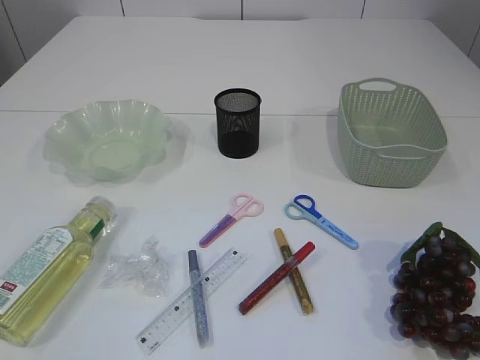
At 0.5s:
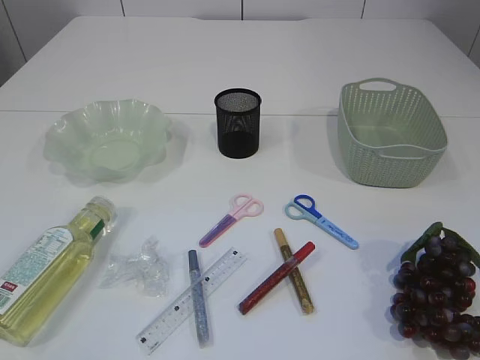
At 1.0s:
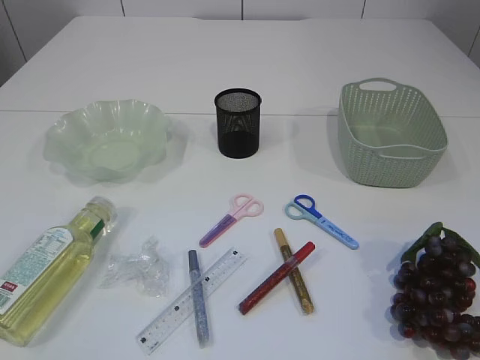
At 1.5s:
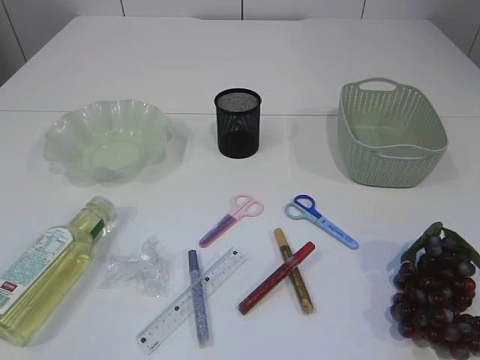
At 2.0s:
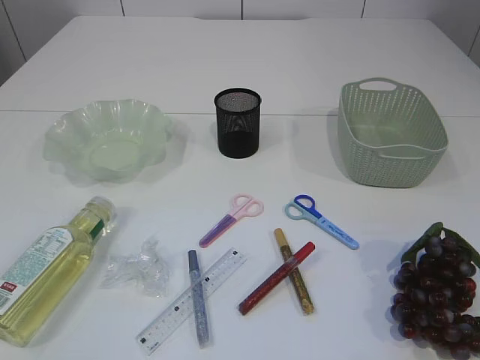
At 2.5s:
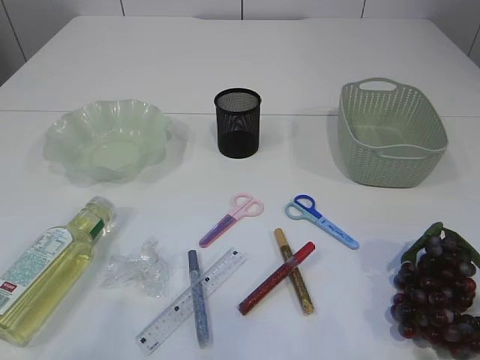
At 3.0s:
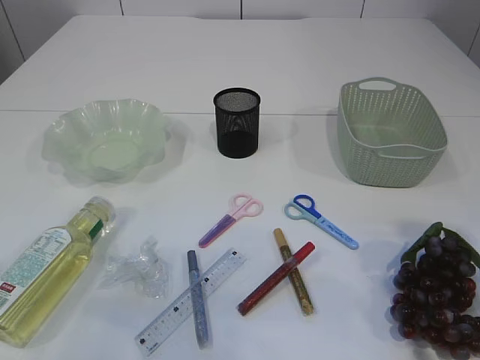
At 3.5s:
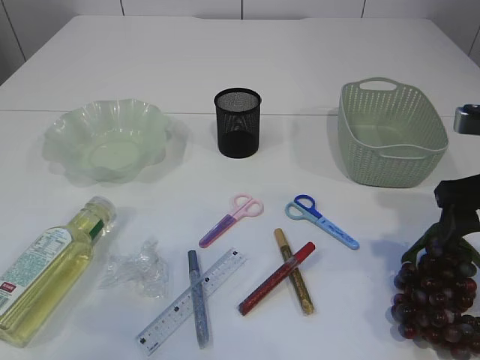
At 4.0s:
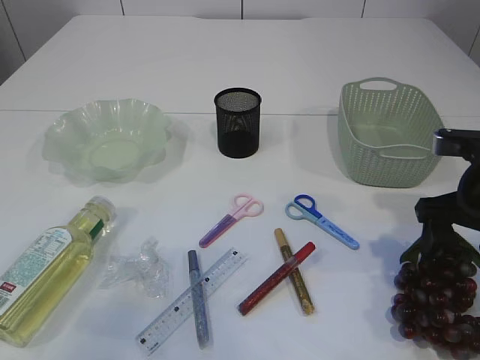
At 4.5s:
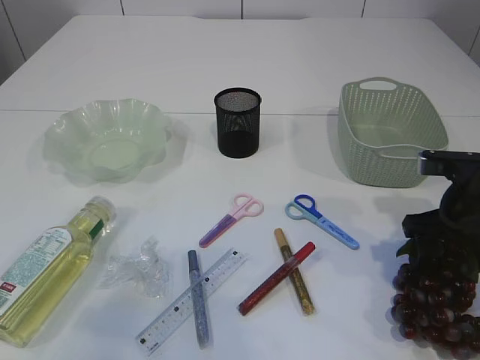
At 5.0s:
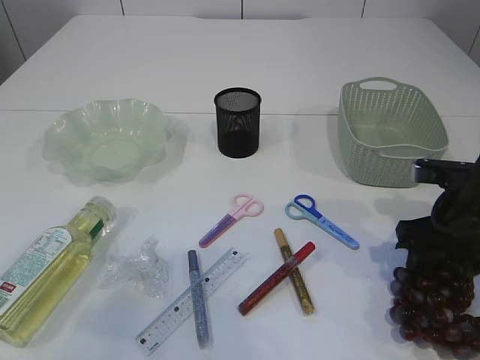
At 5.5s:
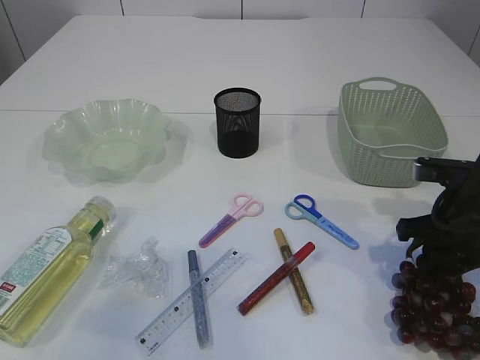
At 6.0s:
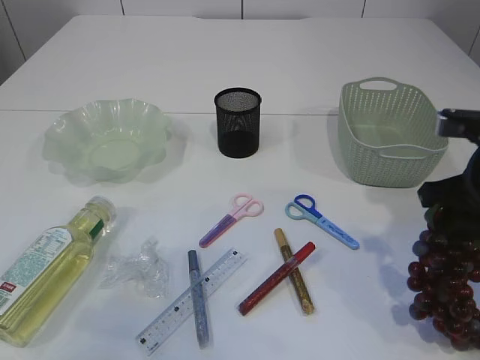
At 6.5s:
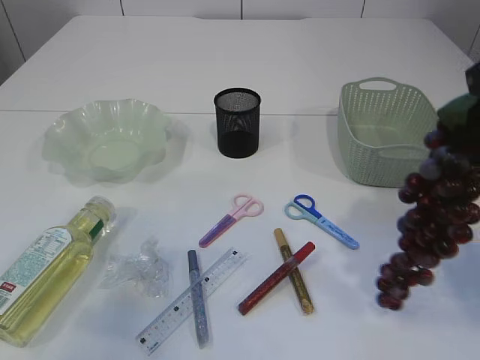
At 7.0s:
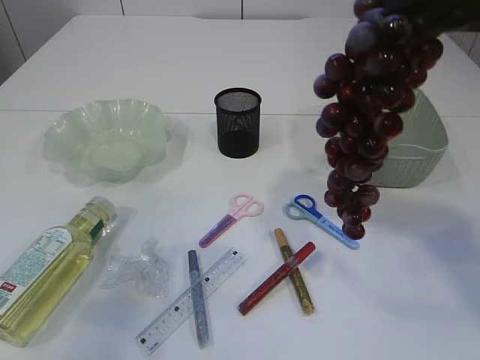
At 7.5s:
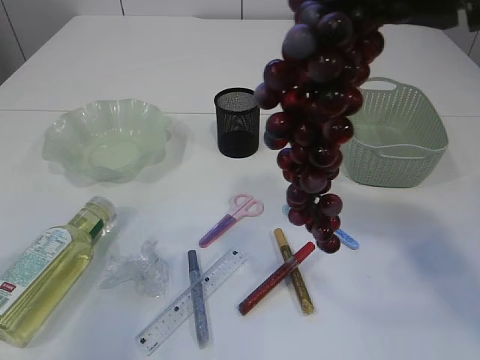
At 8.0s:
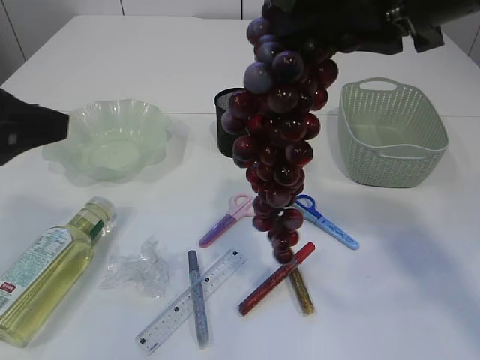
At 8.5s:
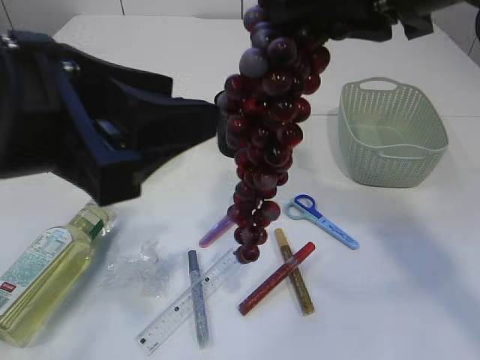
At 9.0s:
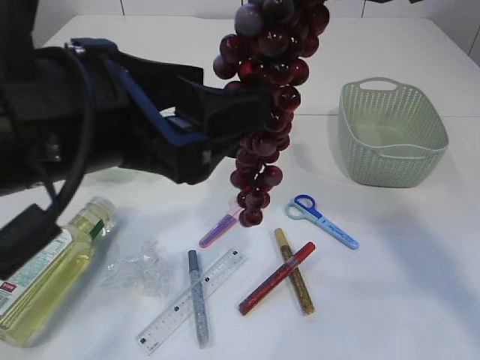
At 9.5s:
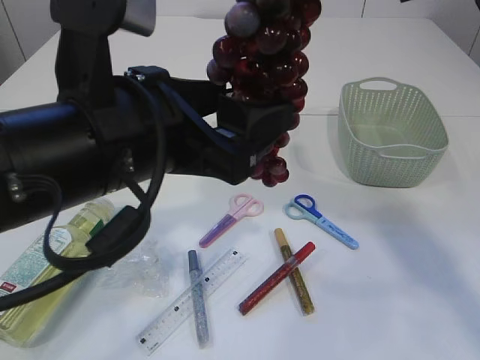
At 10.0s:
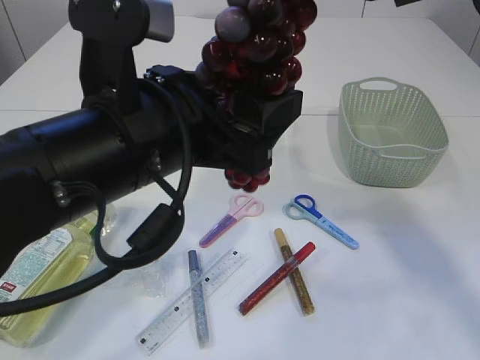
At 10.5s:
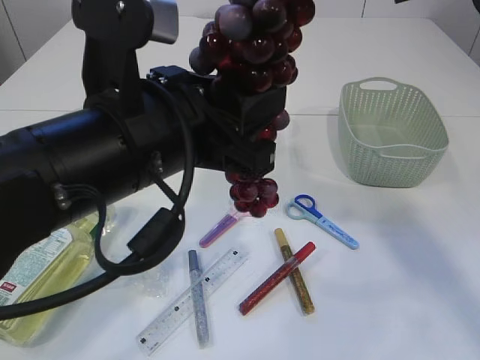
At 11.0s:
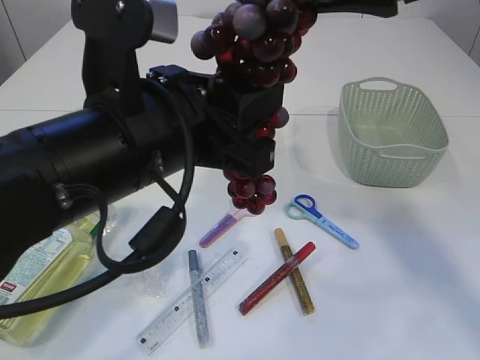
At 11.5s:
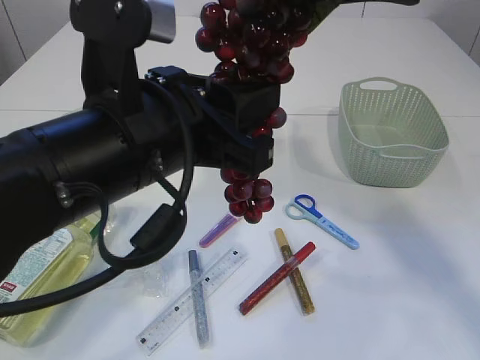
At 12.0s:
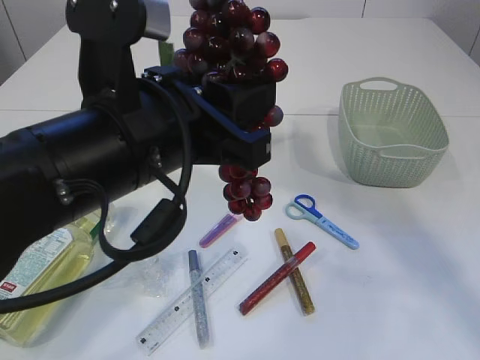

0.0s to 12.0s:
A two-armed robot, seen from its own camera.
Step, 0.0s to 6.5s: Pick up the grapes.
2.0s to 4.0s: The right gripper moves forward, about 30 cm. The left gripper travels forward by about 15 cm.
4.0s to 6.0s: The right gripper closes up.
6.0s to 8.0s: The left gripper moves forward and to the right, about 10 cm. The right gripper is displaced upward and to the left by about 20 cm.
8.0s to 10.0s: The left gripper travels to the right by about 15 cm.
10.0s to 12.0s: The left gripper closes up. The right gripper opens.

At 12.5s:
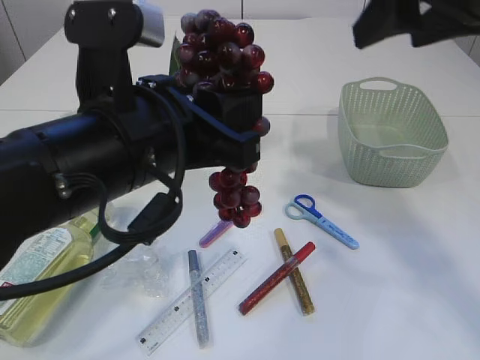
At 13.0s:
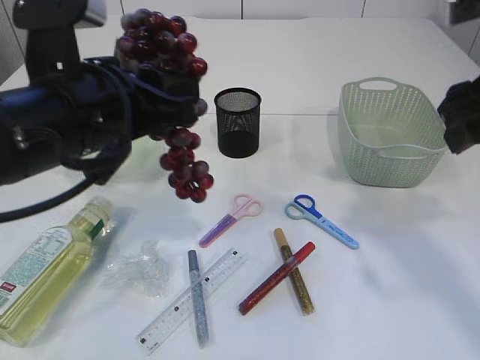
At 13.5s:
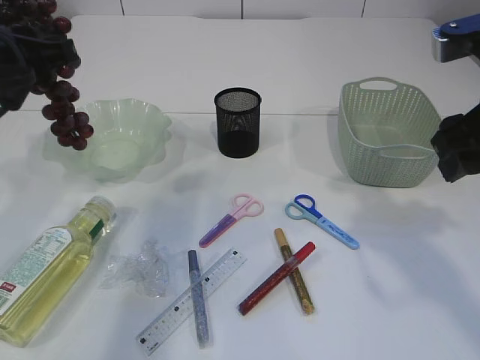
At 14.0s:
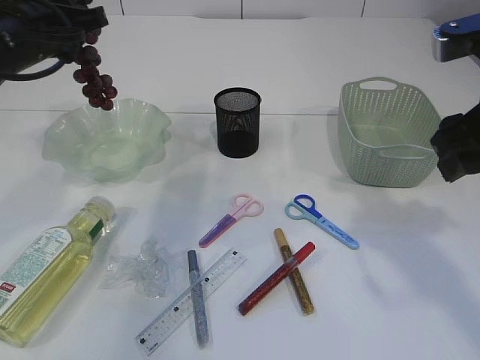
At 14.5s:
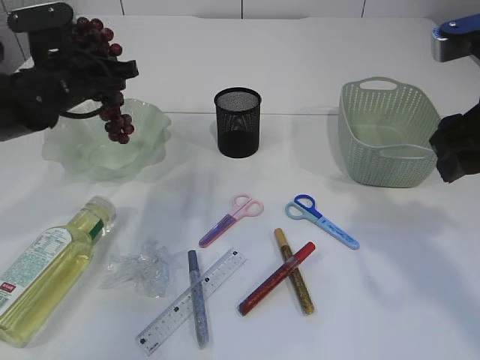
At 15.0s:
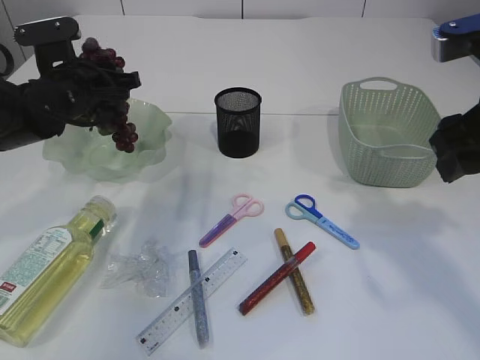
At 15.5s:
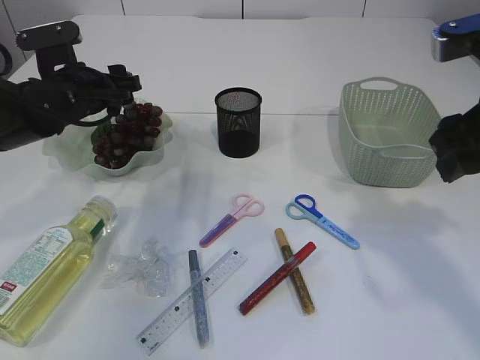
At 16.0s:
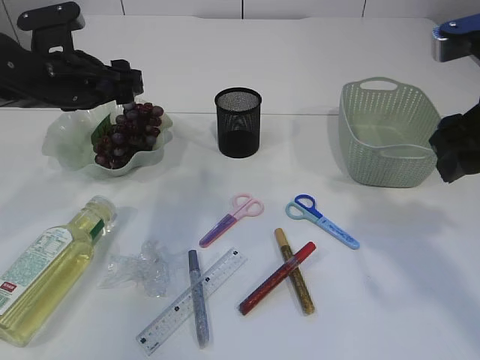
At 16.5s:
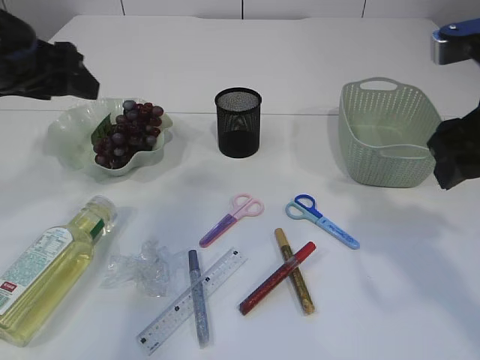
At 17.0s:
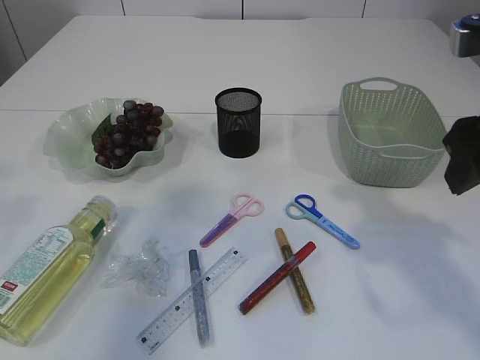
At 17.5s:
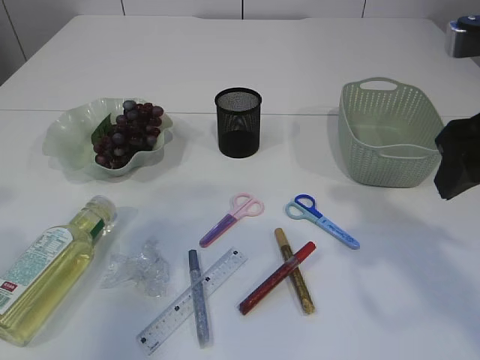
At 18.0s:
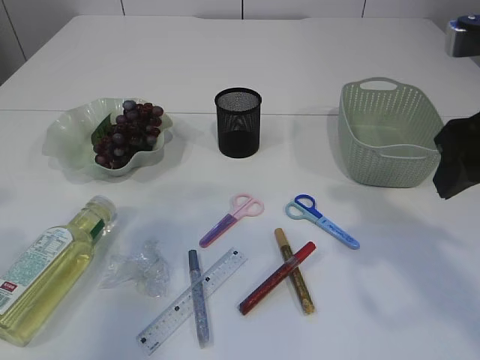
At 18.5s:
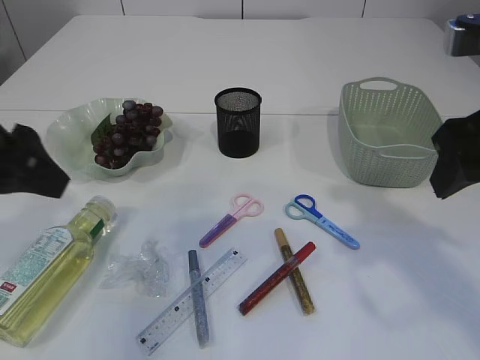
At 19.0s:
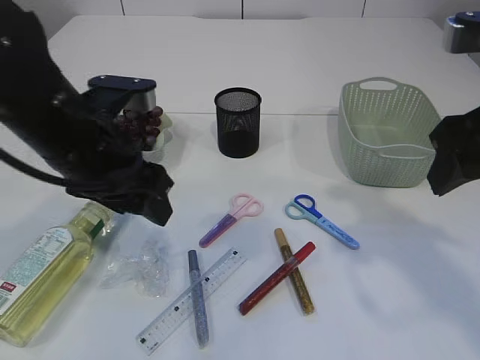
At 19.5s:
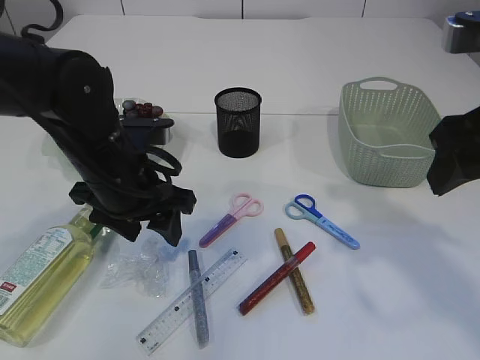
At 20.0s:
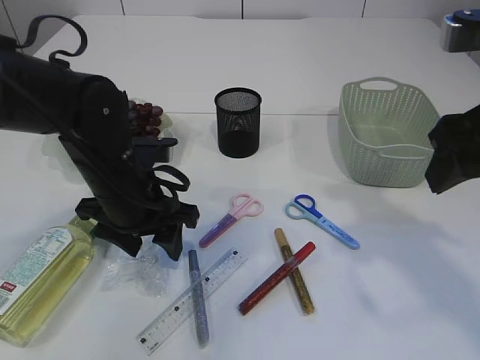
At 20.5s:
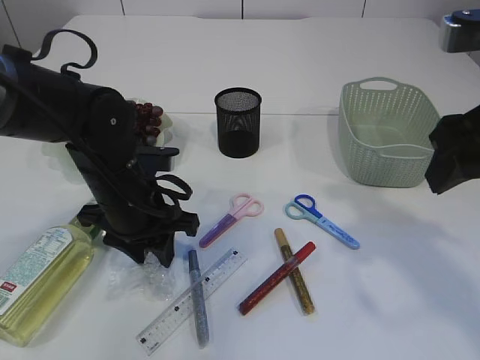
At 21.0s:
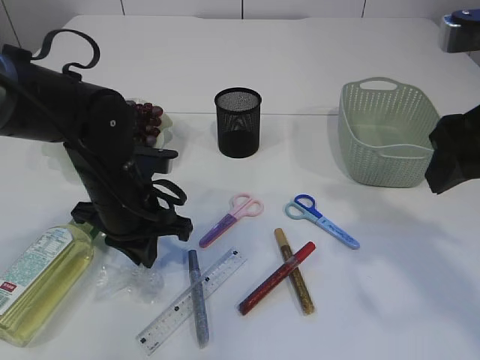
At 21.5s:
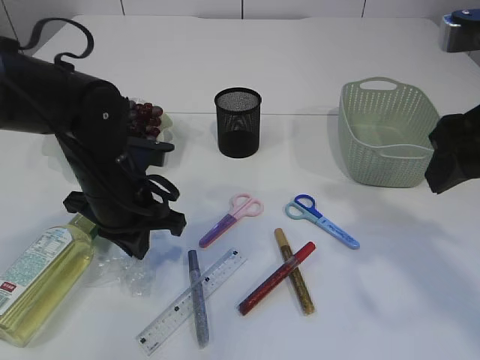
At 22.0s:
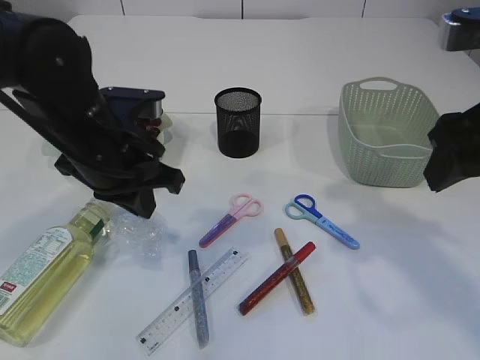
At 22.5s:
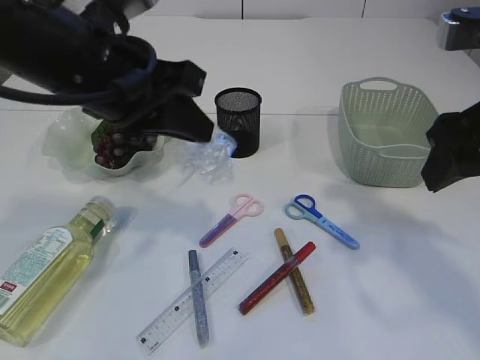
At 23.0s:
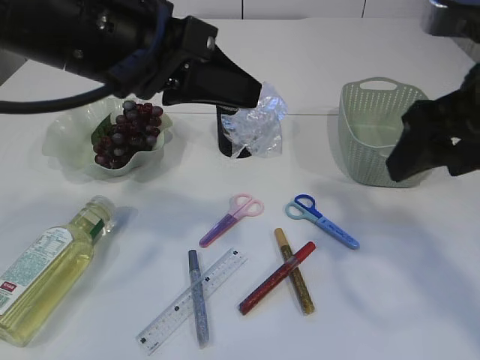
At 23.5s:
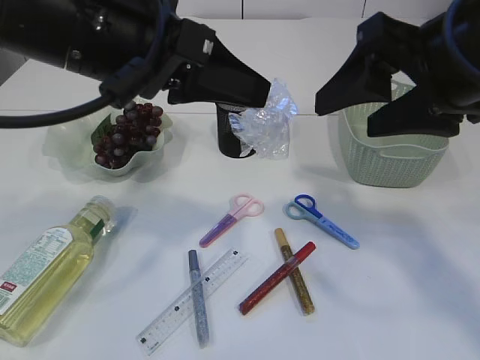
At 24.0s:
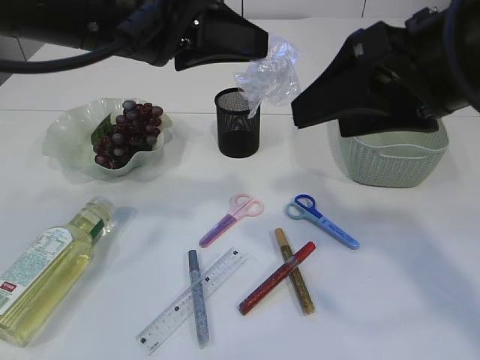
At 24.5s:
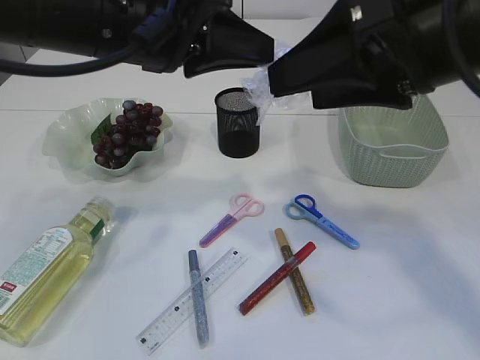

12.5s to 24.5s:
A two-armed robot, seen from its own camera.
Step, 13.0s to 16.5s: Place the grapes in the plate.
Step, 17.0s to 22.0s: Pick up the plastic.
12.5s to 14.5s: The left gripper heads forward and to the left, covering some 25 cm, while the right gripper travels downward by about 10 cm.
14.5s to 16.5s: The left gripper travels backward and upward by approximately 15 cm, and opens.
16.5s to 18.5s: The left gripper shifts roughly 10 cm backward.
18.5s to 20.5s: The left gripper moves downward, to the right and forward, about 20 cm.
20.5s to 22.5s: The left gripper is displaced upward by approximately 15 cm, and closes up.
22.5s to 24.5s: The right gripper moves to the left, approximately 5 cm.

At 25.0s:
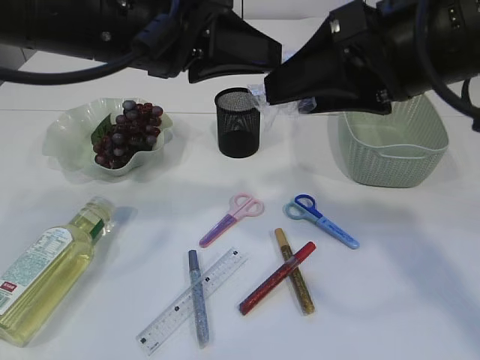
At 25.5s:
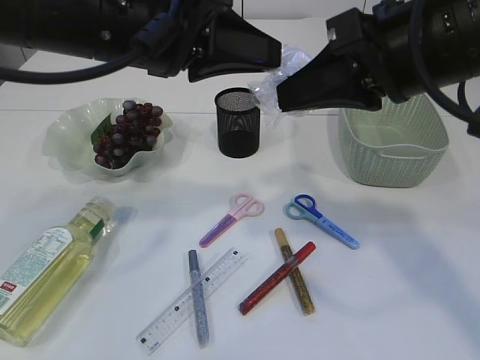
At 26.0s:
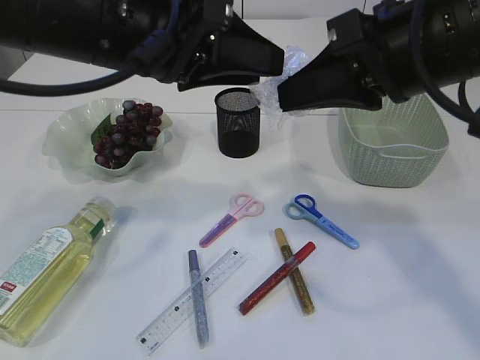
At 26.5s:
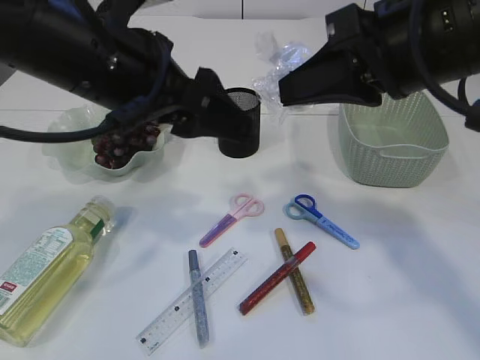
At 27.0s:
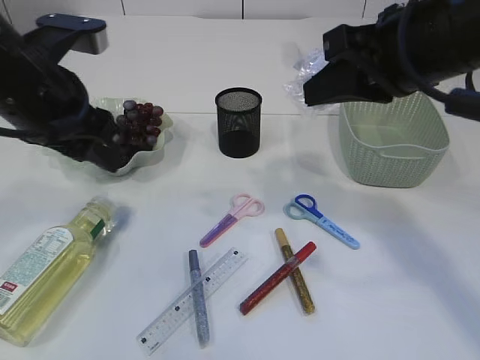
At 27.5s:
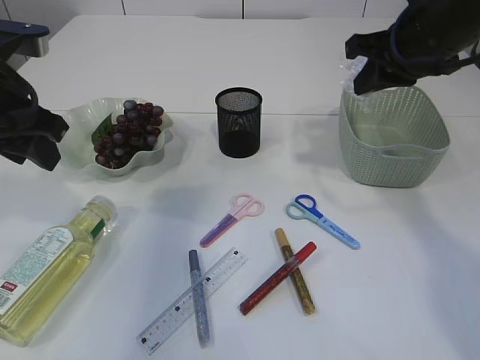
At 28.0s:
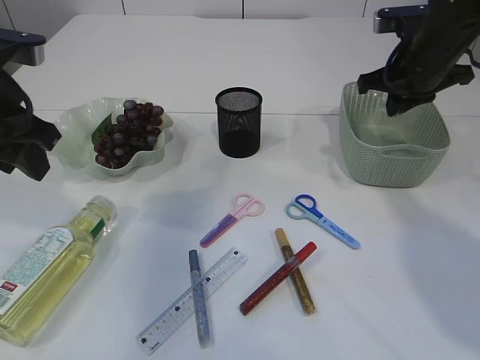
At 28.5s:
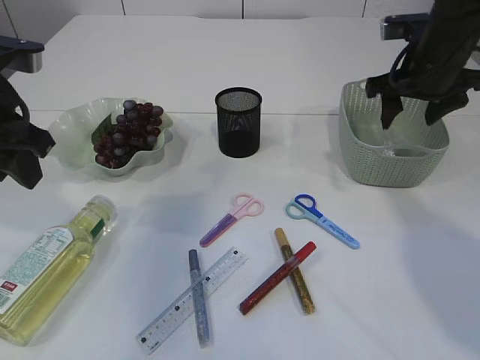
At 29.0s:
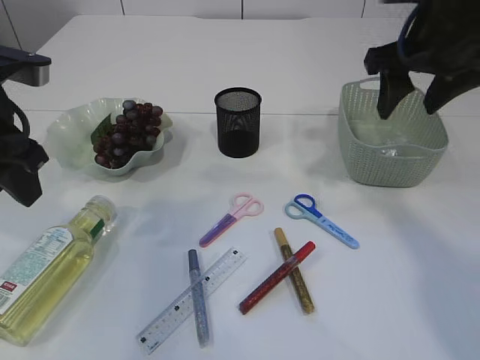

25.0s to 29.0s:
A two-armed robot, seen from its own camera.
25.0s to 27.0s: The left gripper shifts some 10 cm to the left and downward, and opens up, while the right gripper closes its fingers.
27.0s to 29.0s: The right gripper shifts roughly 10 cm forward and to the right, and opens. Meanwhile the left gripper travels to the left by about 5 cm.
